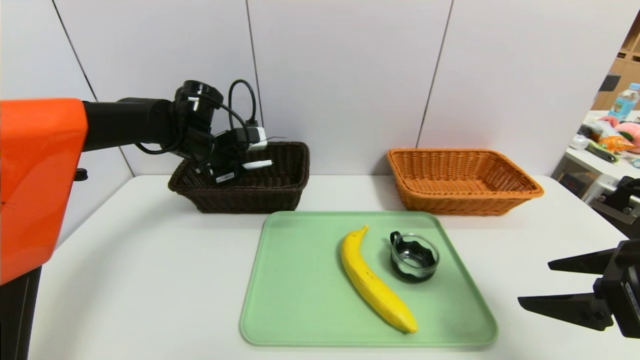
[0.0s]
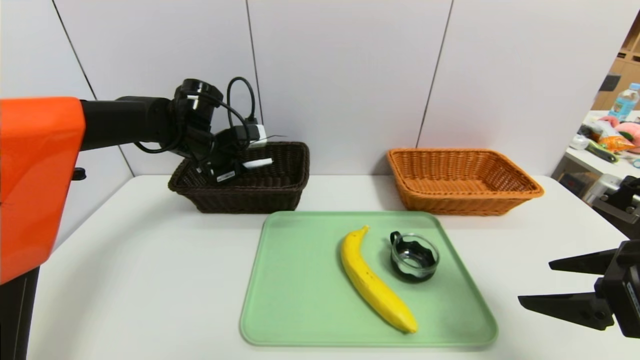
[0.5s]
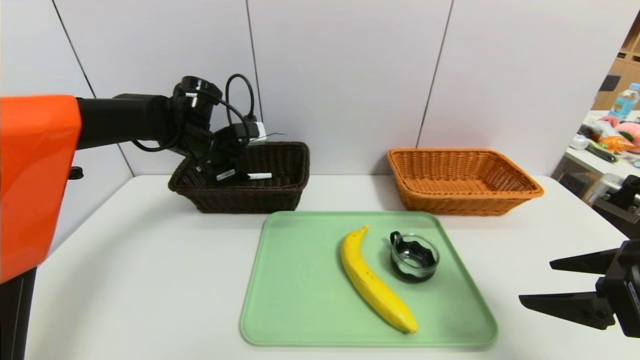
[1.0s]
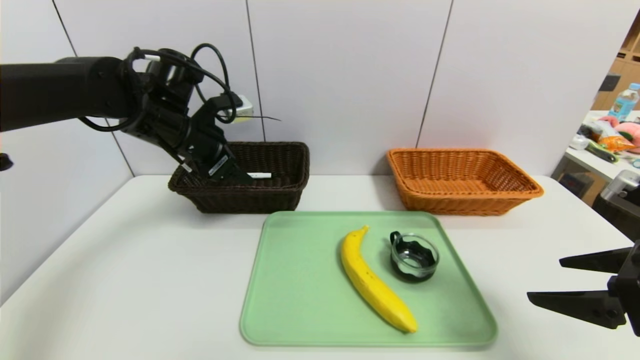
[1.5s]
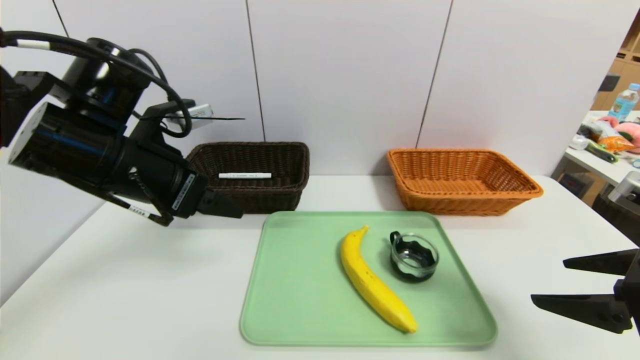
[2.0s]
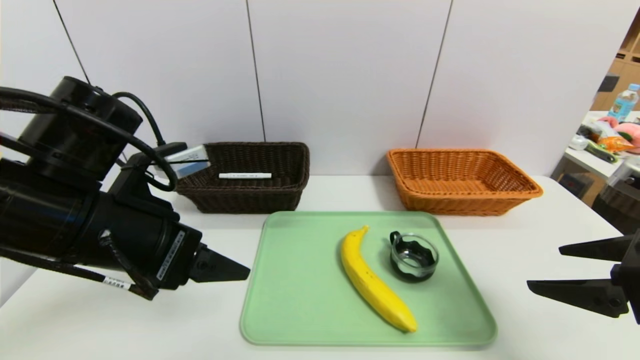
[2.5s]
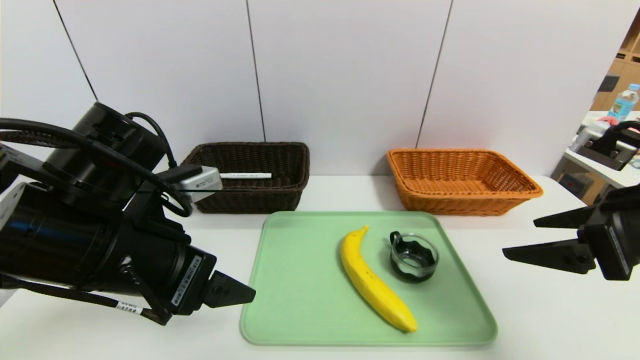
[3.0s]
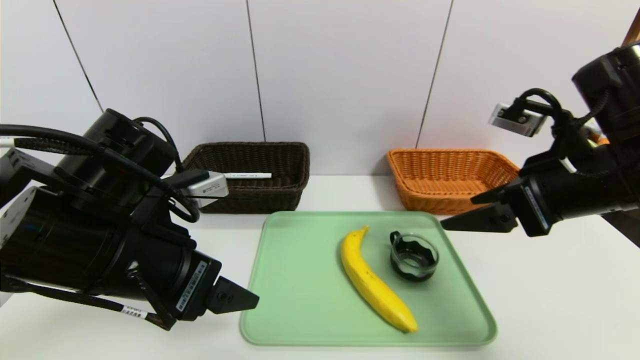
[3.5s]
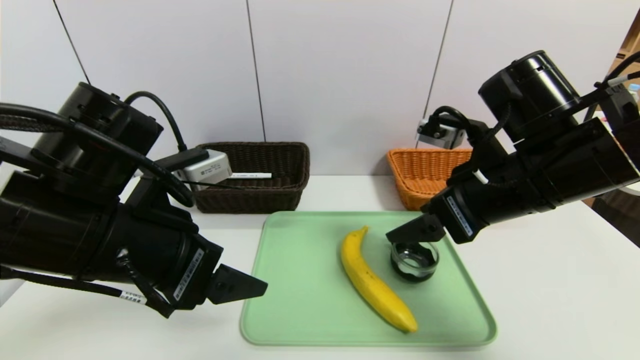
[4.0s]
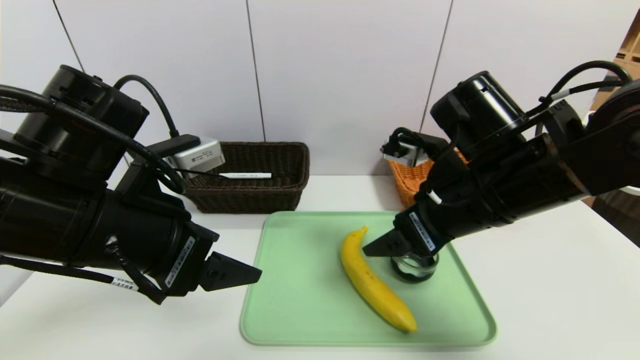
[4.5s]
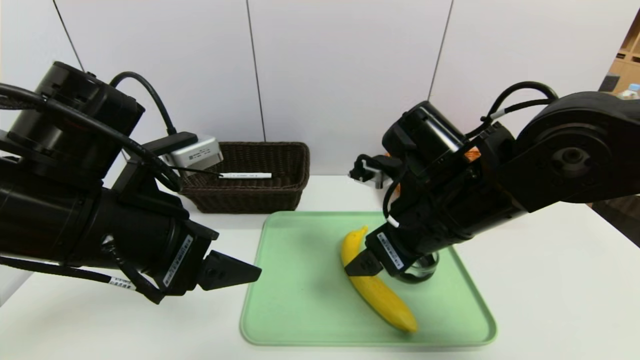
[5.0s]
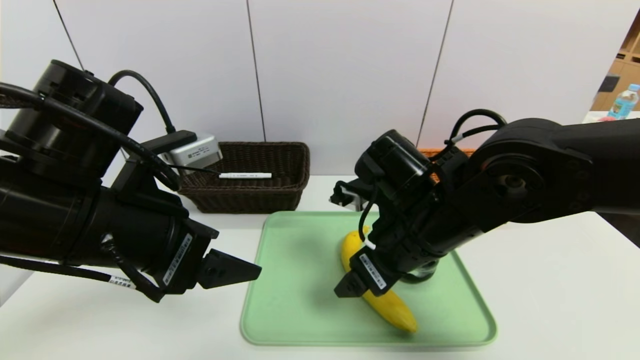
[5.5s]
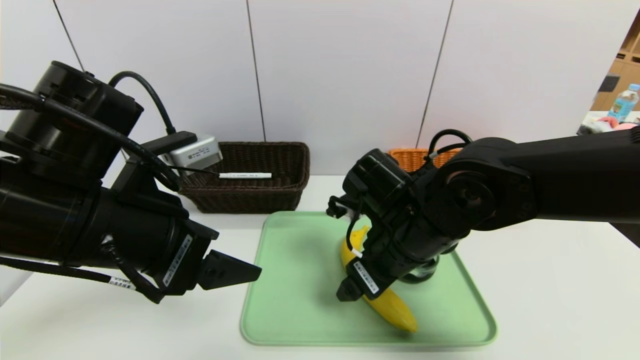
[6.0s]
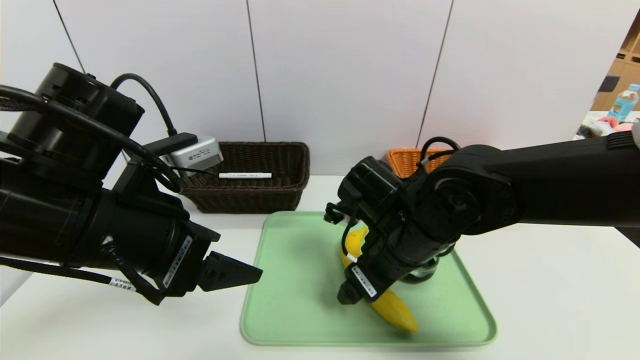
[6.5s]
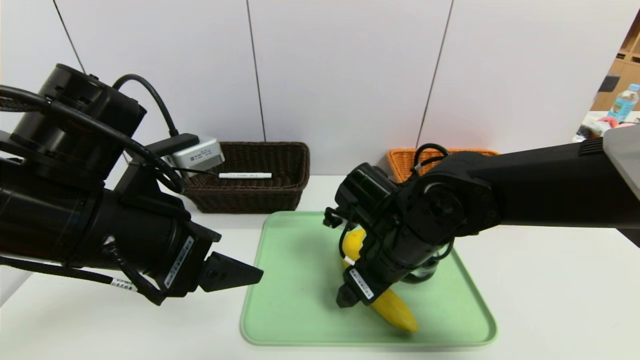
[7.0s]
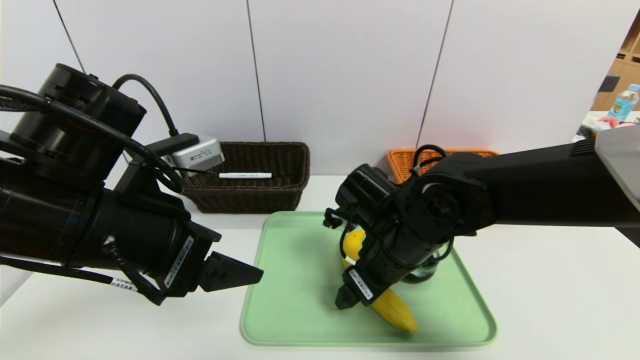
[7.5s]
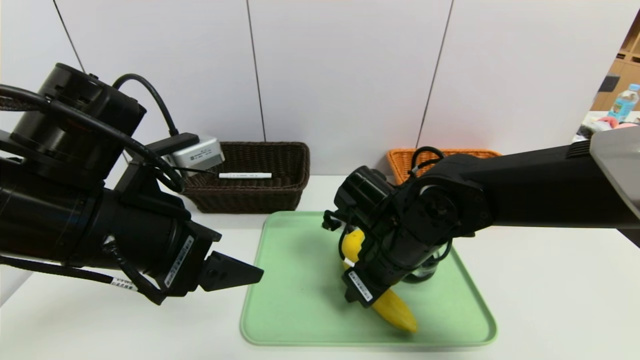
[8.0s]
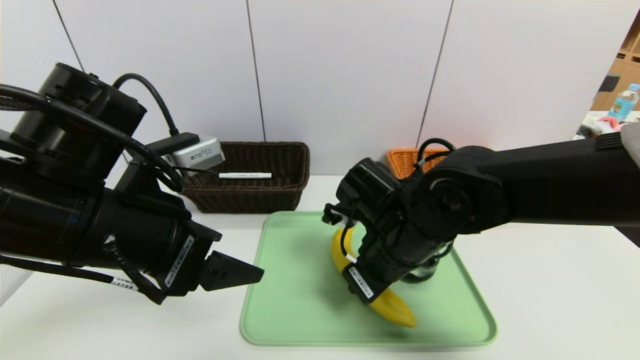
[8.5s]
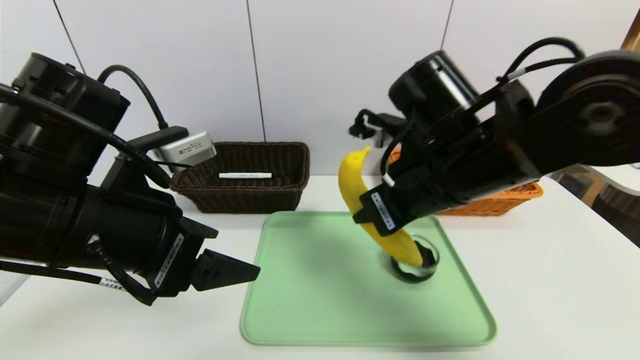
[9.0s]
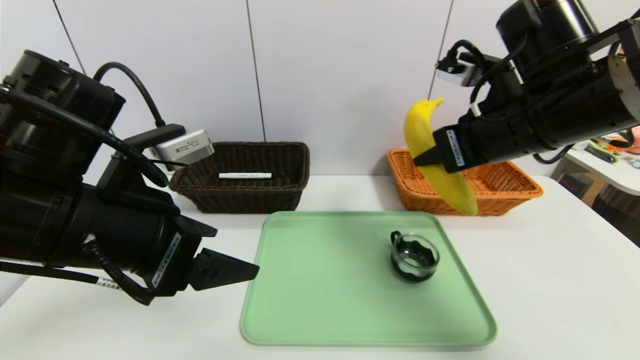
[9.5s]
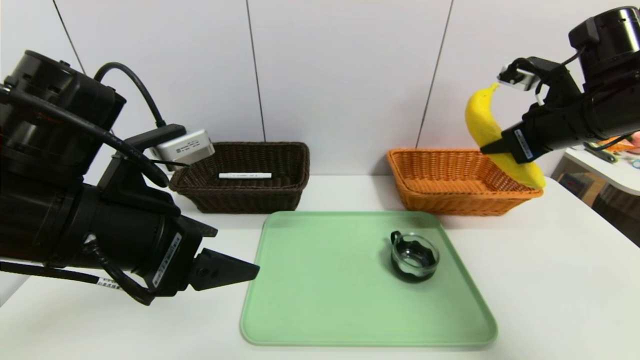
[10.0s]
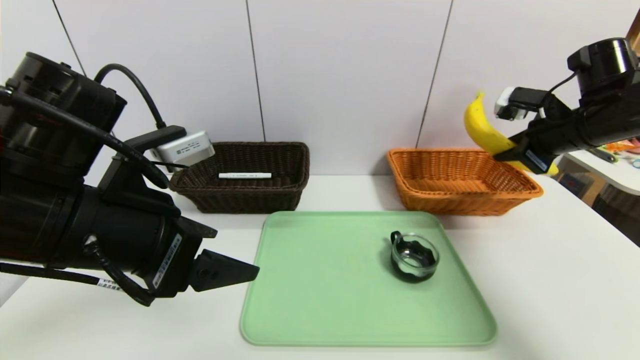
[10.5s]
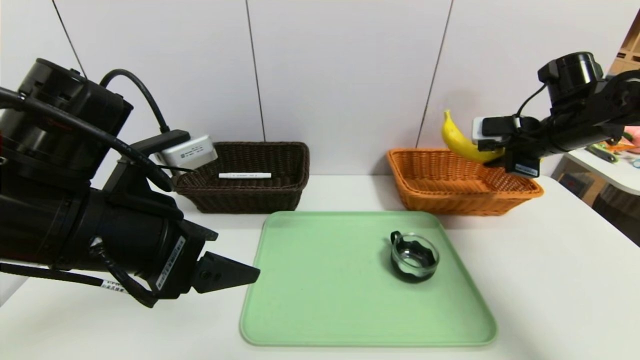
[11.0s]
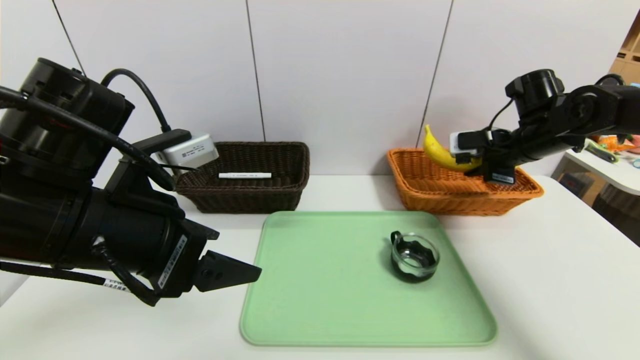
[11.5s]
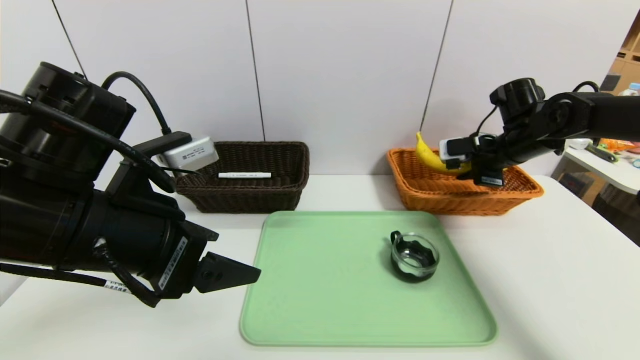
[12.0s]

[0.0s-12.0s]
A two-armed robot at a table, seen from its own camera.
Task of the whole recording: place the food in the right basket with the right gripper, and place the non food items in the left basket with the left gripper.
0.0s to 2.0s: The left gripper travels backward by roughly 20 cm, and opens its fingers.
2.0s to 4.0s: The right gripper heads to the left and forward, covering approximately 15 cm. Meanwhile the left gripper goes roughly 5 cm backward.
4.0s to 6.0s: The right gripper goes approximately 15 cm to the left and downward.
6.0s to 8.0s: The right gripper closes up.
8.0s to 10.0s: The right gripper heads to the right and upward, covering approximately 25 cm, and closes.
10.0s to 12.0s: The right gripper moves forward and downward, some 15 cm.

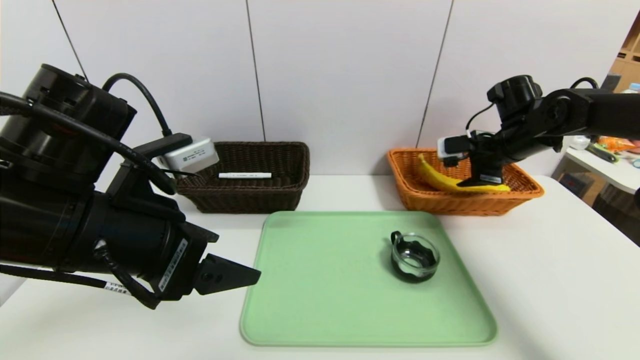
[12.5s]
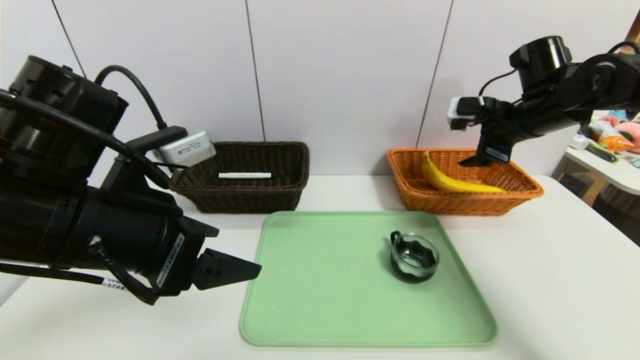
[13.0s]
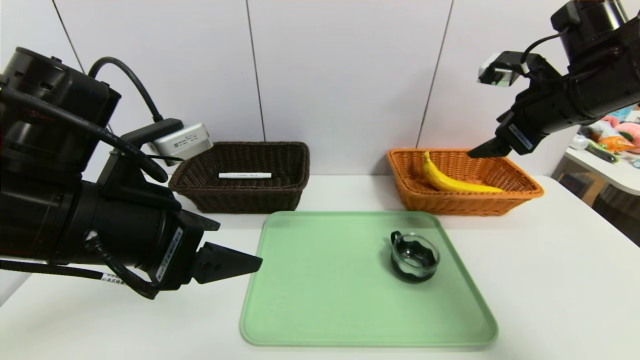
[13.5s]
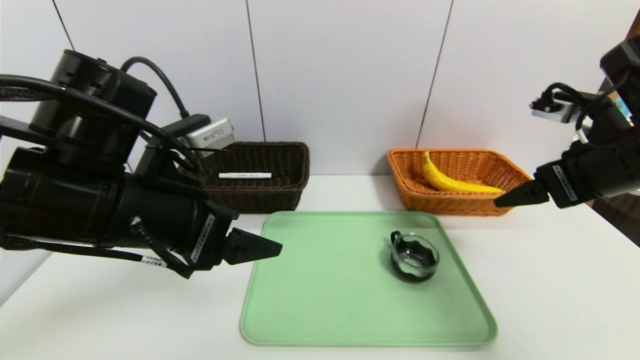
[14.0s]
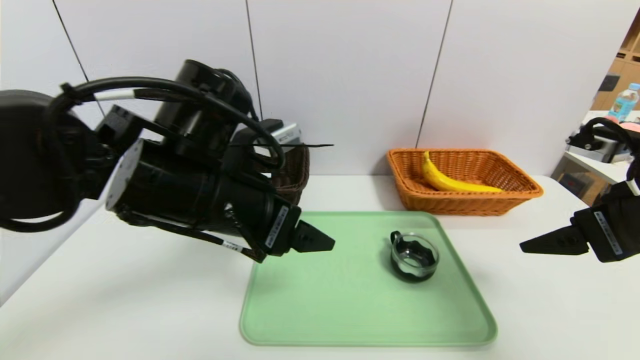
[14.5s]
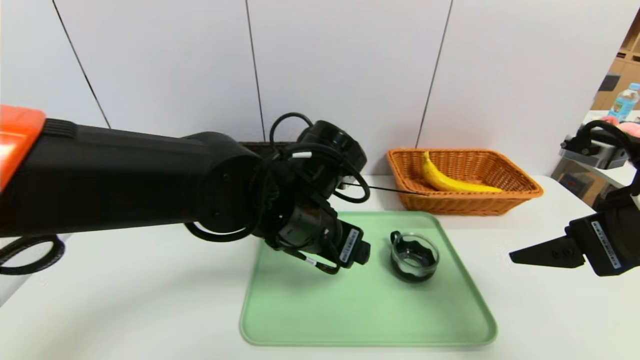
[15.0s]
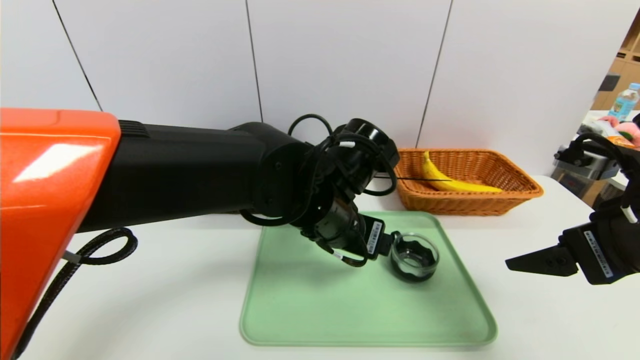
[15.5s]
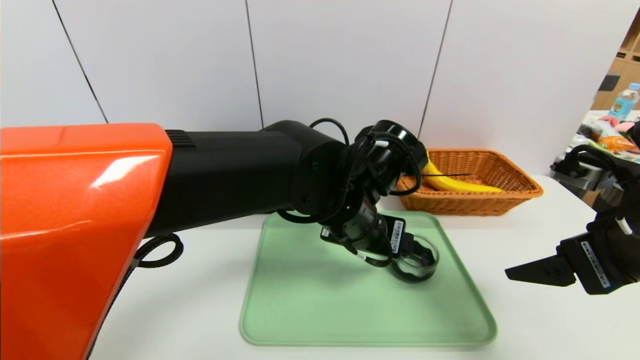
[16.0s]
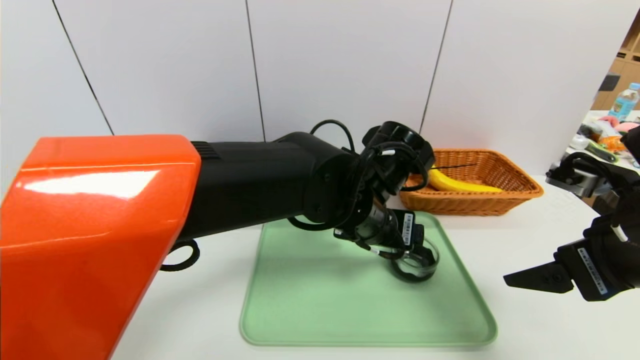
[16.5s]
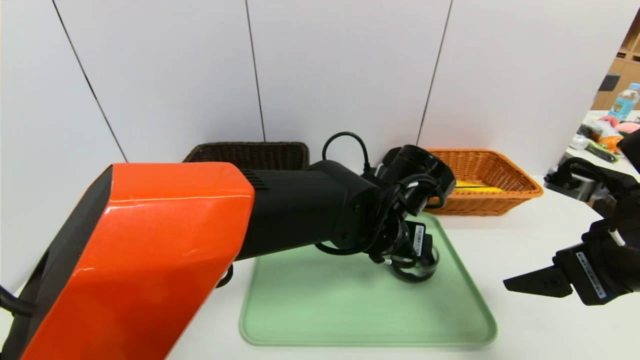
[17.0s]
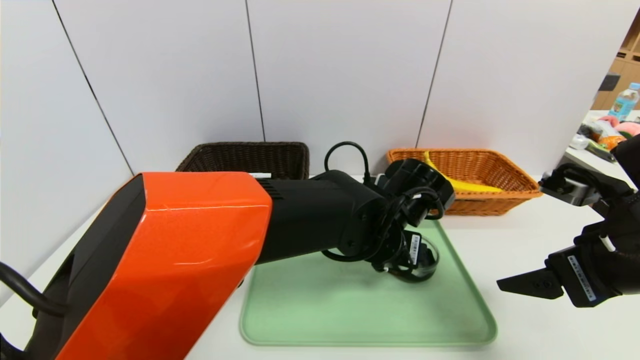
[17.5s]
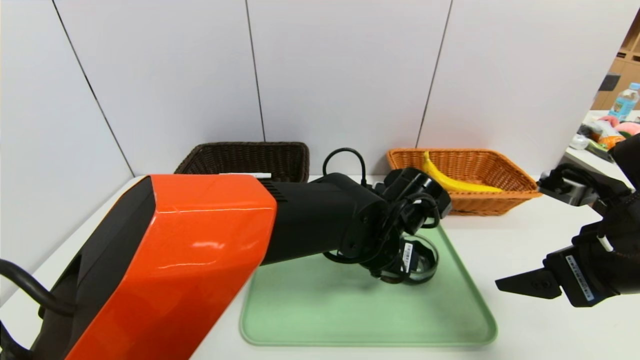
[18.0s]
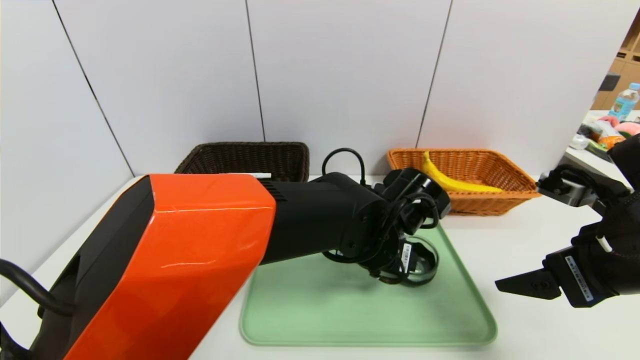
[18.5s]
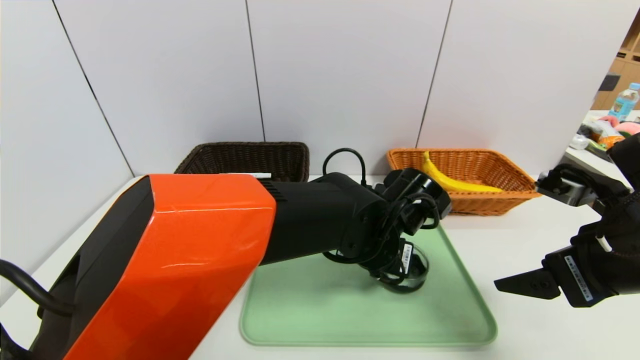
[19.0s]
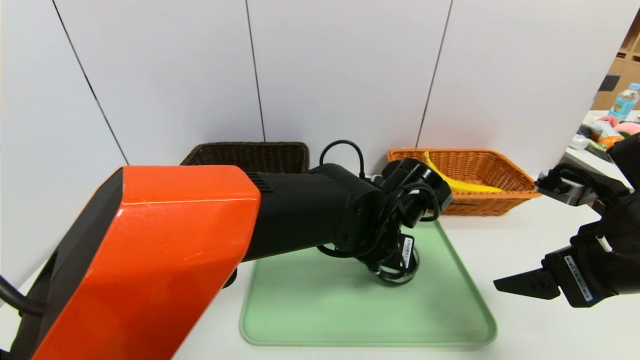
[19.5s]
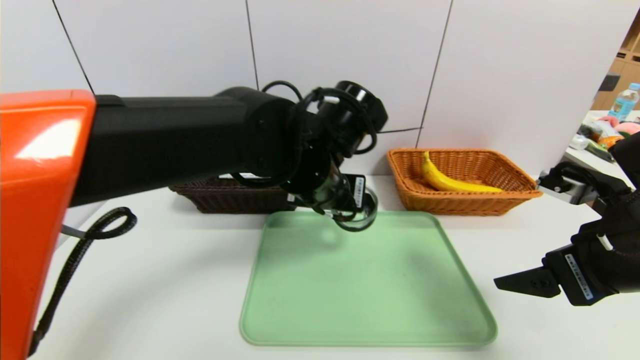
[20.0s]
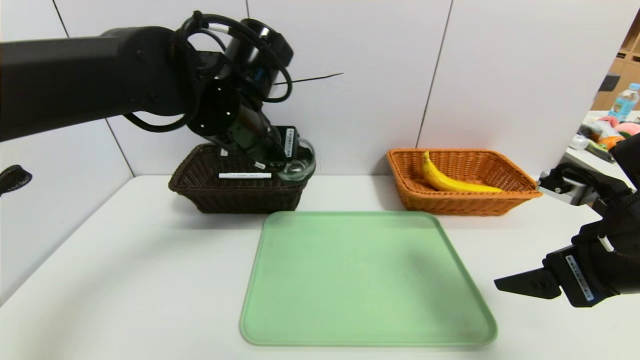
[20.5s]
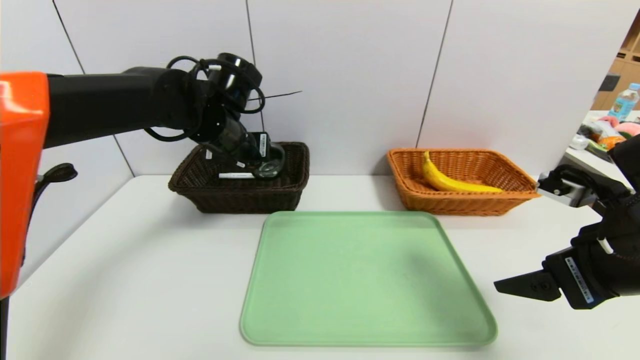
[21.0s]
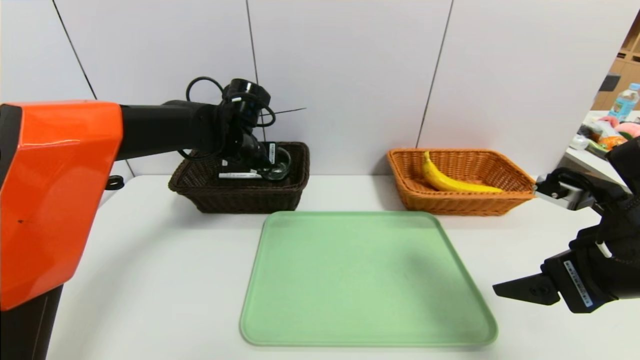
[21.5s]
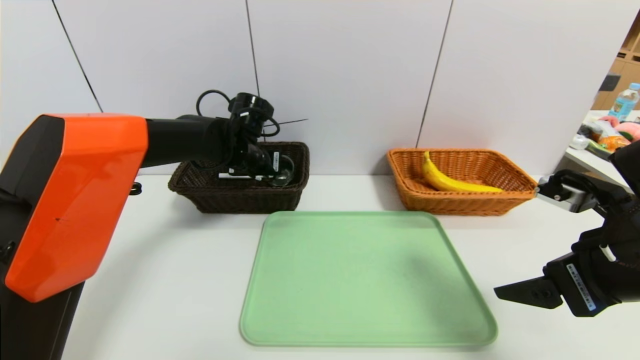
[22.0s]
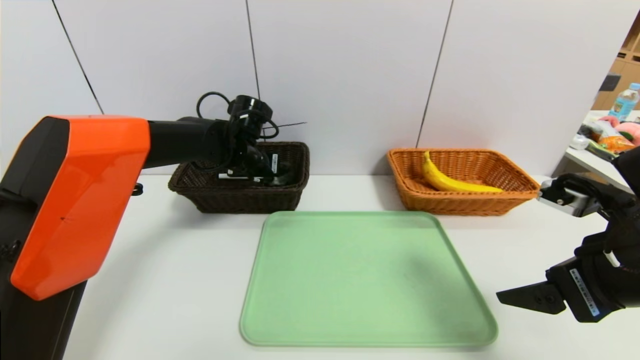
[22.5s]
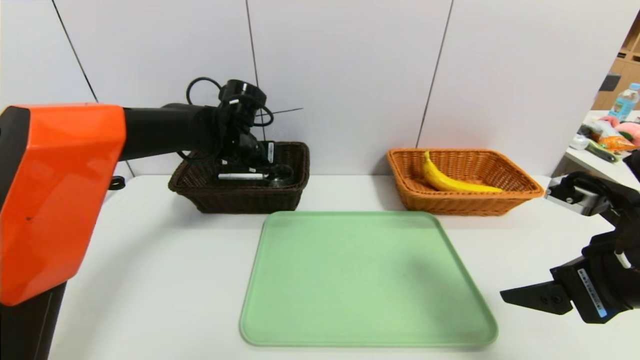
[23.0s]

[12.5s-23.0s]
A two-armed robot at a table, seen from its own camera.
Task of the whole recording: place the food in the right basket with the right gripper, and place the non food items in the left basket with the left gripper.
12.5s to 14.5s: The right gripper shifts some 25 cm backward, and opens its fingers; the left gripper shifts approximately 5 cm to the right.
14.5s to 16.5s: The left gripper travels to the right by about 15 cm.
16.5s to 19.0s: The left gripper is displaced downward by approximately 5 cm, and closes its fingers.
19.0s to 21.0s: The left gripper heads to the left, forward and upward, covering approximately 25 cm, and closes up.
21.0s to 23.0s: The left gripper travels forward by some 5 cm, and opens its fingers.
